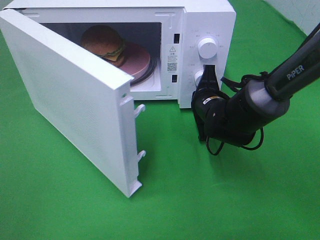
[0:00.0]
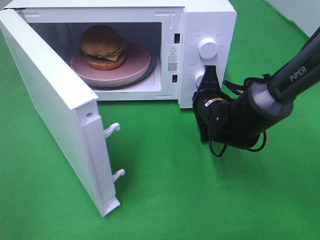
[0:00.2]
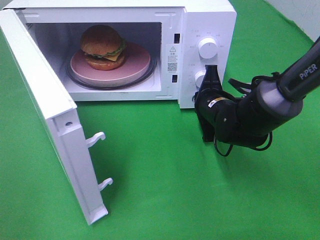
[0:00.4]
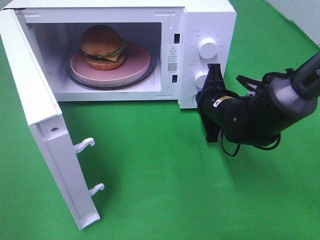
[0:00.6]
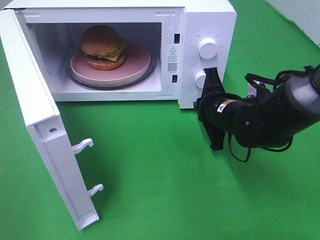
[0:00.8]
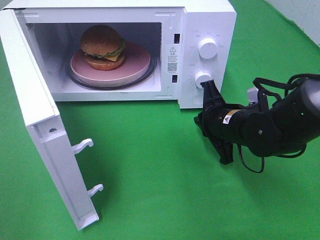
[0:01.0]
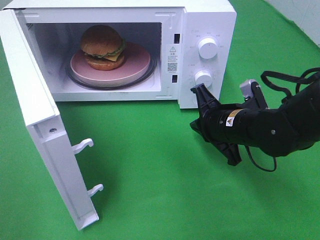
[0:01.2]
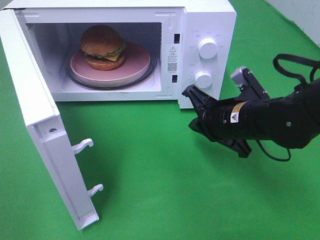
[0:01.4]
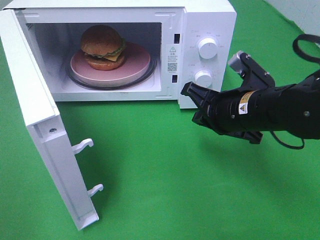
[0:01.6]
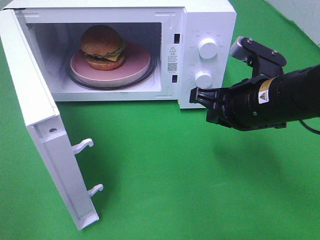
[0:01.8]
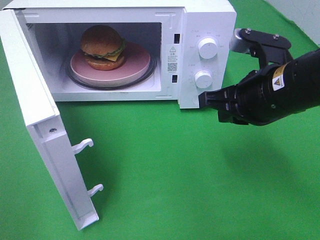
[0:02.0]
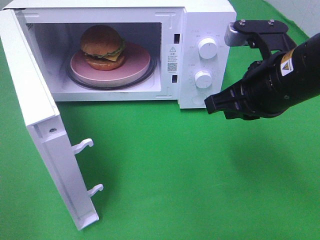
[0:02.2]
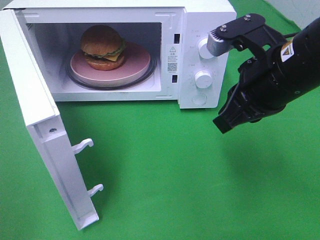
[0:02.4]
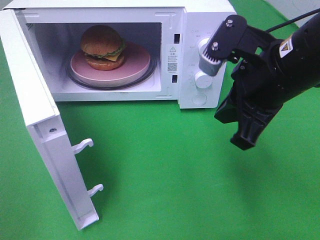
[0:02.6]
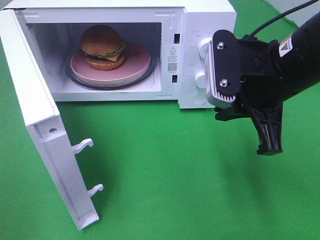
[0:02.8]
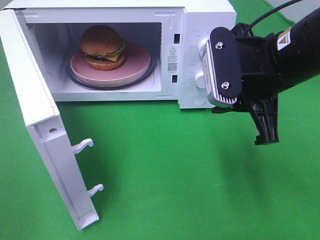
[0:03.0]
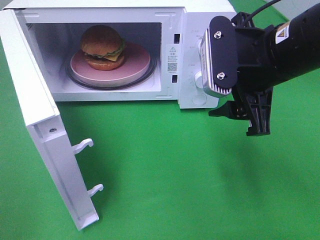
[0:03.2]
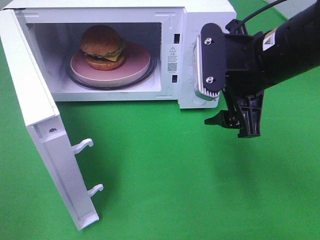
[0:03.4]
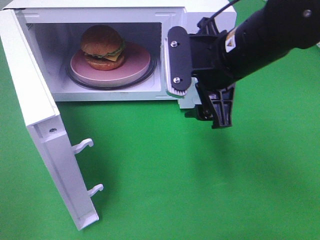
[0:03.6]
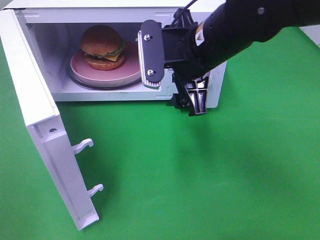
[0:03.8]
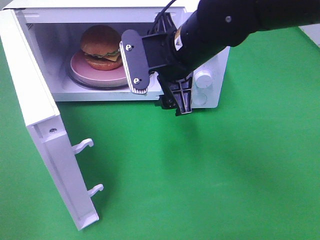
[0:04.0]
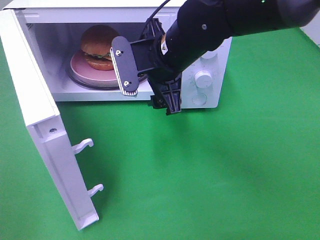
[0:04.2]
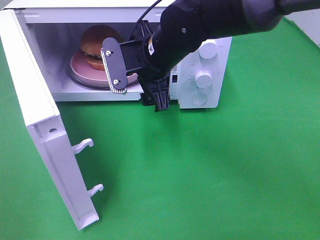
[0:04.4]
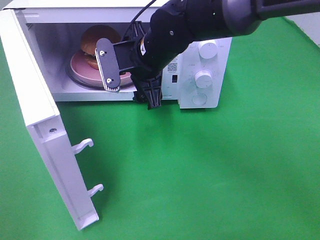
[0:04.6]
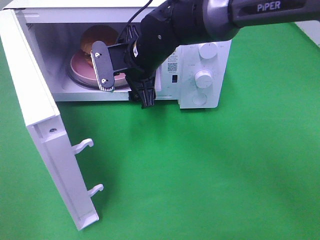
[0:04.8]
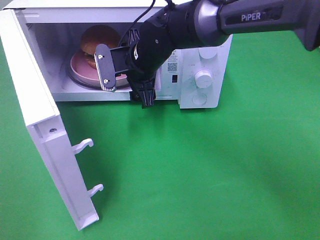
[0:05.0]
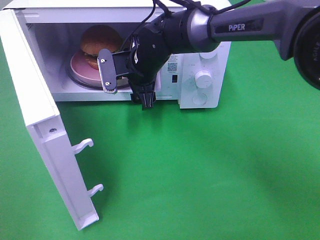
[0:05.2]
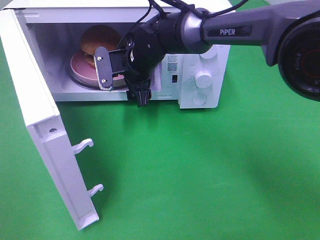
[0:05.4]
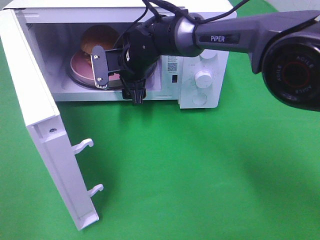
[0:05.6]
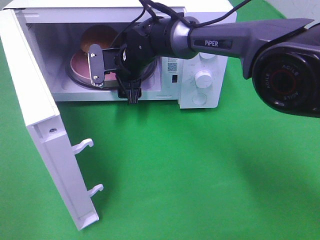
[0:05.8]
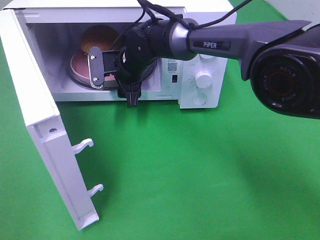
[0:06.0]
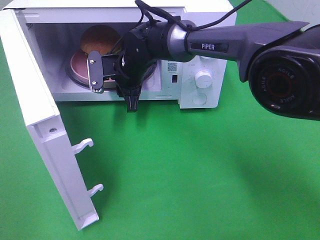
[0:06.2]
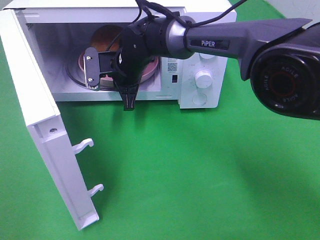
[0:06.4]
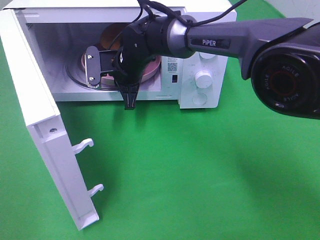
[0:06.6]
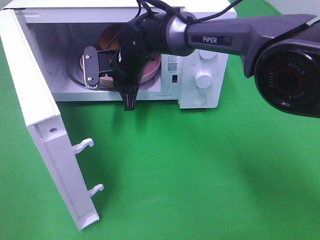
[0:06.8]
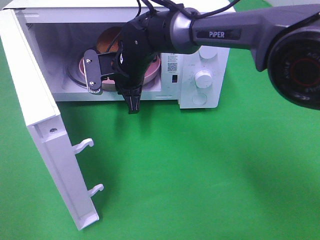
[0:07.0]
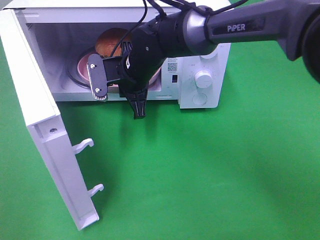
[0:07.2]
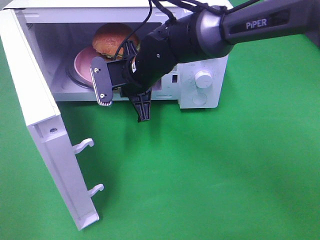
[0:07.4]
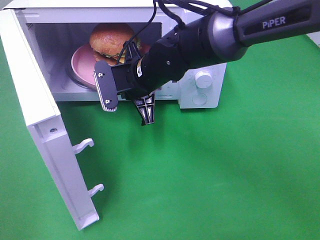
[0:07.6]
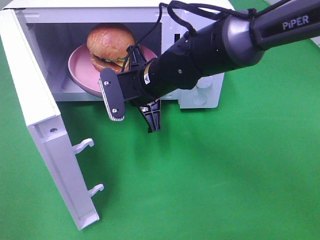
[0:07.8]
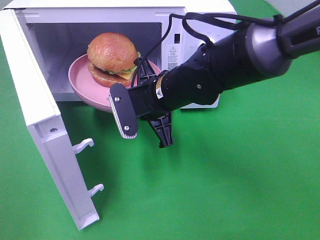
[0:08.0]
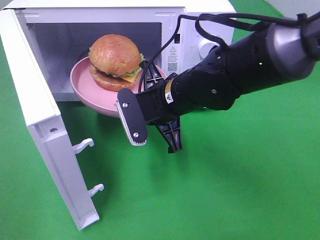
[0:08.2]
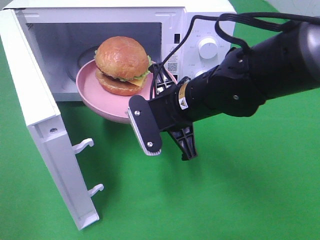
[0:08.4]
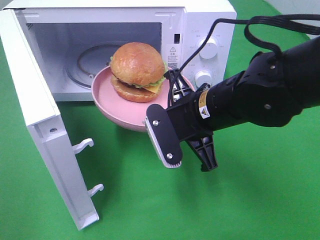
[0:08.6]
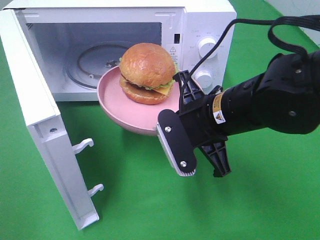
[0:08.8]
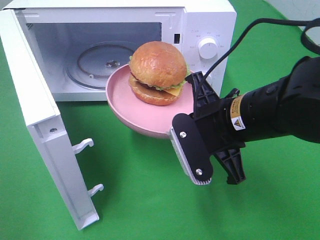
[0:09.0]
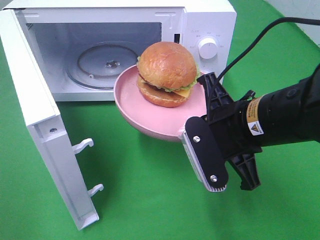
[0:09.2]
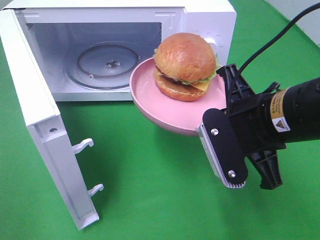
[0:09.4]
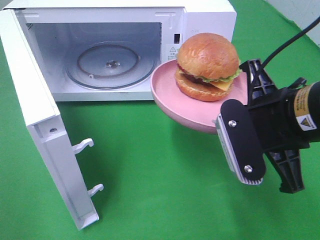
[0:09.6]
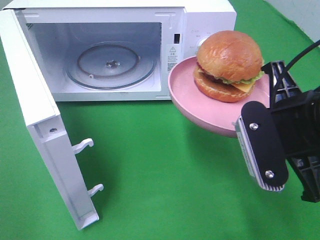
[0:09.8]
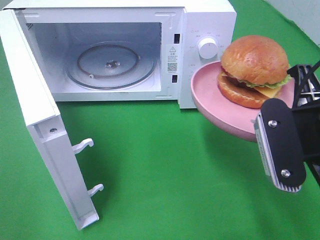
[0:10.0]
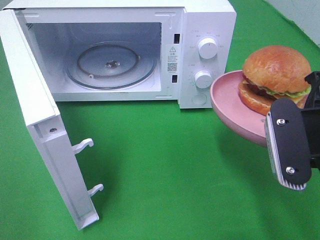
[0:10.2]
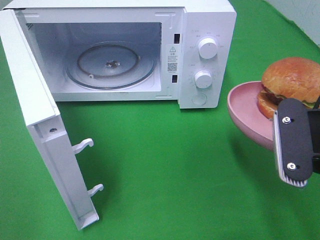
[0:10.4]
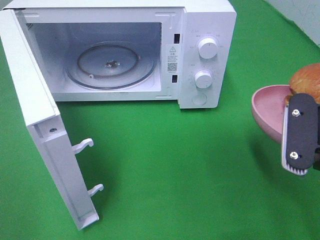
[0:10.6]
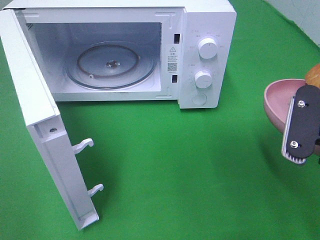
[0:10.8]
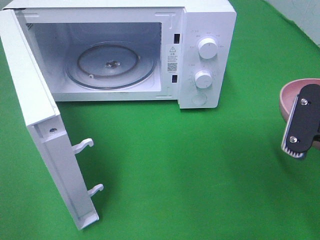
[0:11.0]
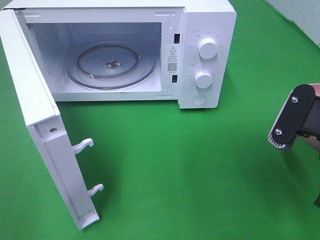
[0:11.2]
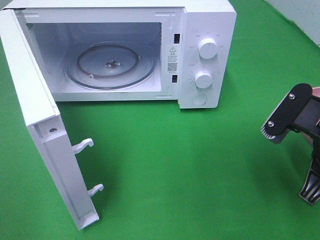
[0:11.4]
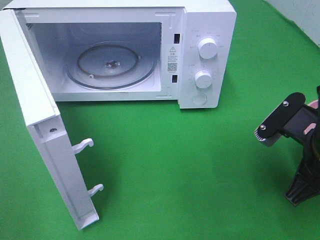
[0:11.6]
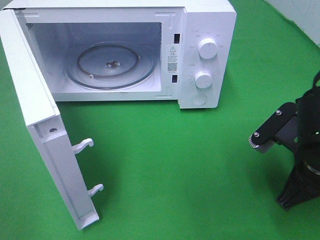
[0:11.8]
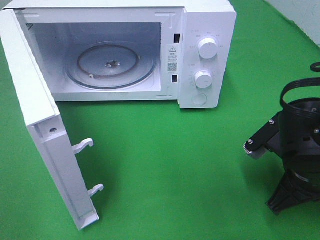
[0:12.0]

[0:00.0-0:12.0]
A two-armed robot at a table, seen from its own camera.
Task of the whole recording: Heat the burger.
Step, 0:01.4 to 0:06.4: Right hand: grab the plate with the hamburger.
0:00.0 to 0:01.6: The right gripper goes about 10 cm backward and upward.
0:01.6 to 0:03.0: The right gripper goes about 10 cm upward, and opens.
0:03.0 to 0:04.4: The right gripper shifts some 20 cm to the left and forward, and opens.
0:04.4 to 0:06.0: The right gripper goes some 10 cm forward and downward.
0:06.0 to 0:07.6: The right gripper shifts about 10 cm backward, and closes up.
0:07.6 to 0:09.0: The right gripper travels backward and to the right by approximately 20 cm.
0:09.0 to 0:10.4: The right gripper moves to the right and backward, roughly 10 cm.
0:10.4 to 0:12.0: The right gripper is displaced downward by about 10 cm.

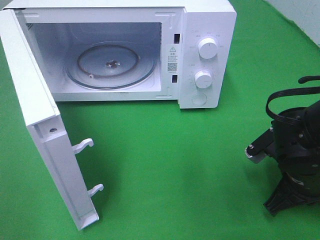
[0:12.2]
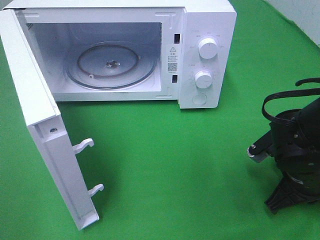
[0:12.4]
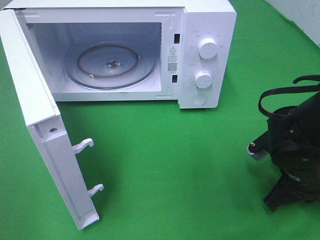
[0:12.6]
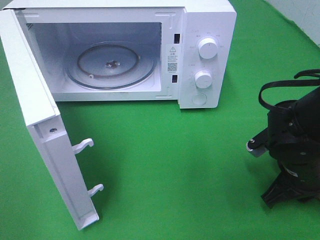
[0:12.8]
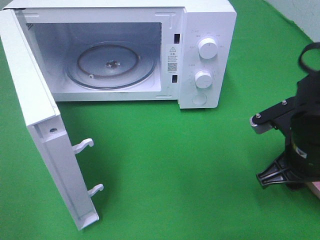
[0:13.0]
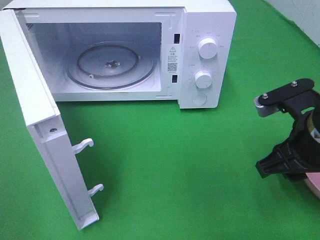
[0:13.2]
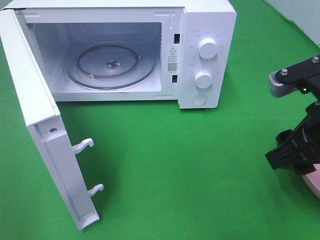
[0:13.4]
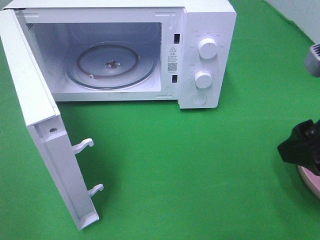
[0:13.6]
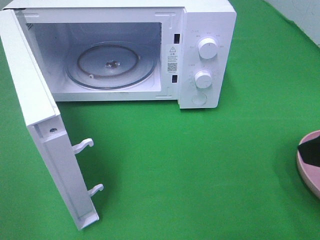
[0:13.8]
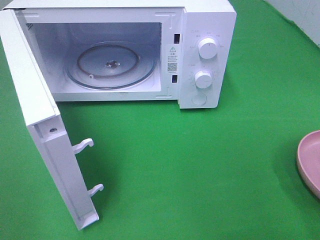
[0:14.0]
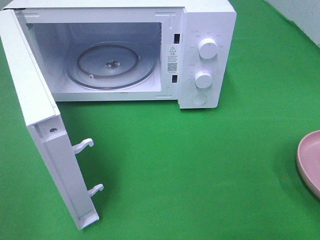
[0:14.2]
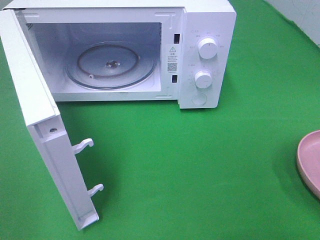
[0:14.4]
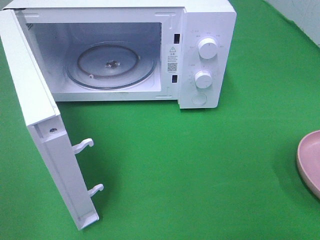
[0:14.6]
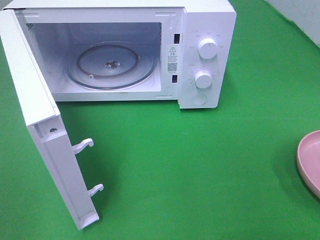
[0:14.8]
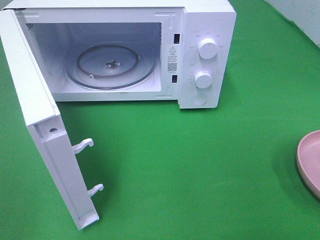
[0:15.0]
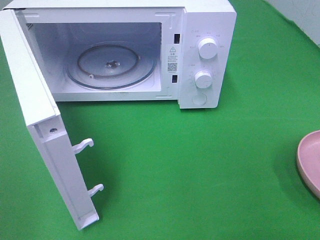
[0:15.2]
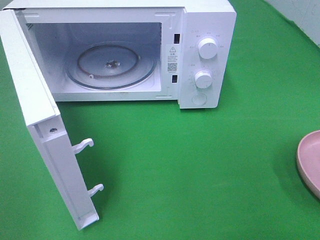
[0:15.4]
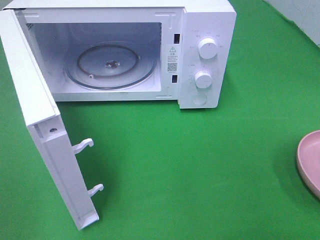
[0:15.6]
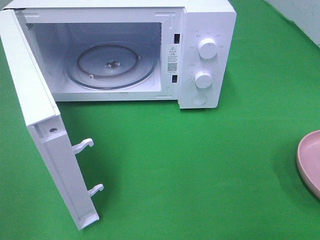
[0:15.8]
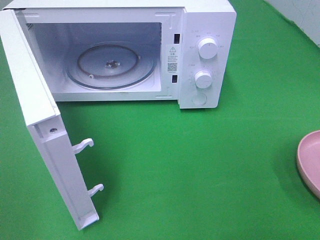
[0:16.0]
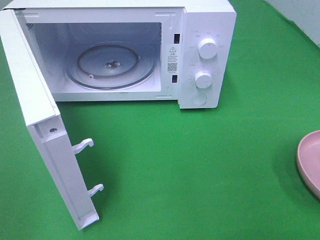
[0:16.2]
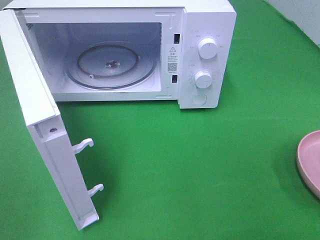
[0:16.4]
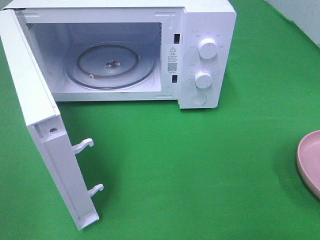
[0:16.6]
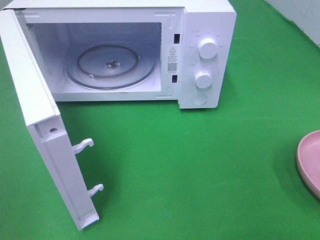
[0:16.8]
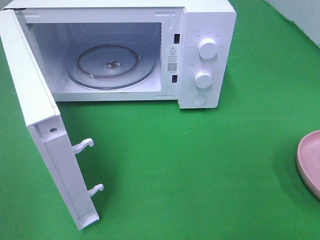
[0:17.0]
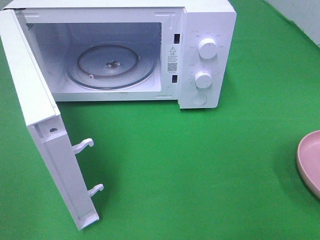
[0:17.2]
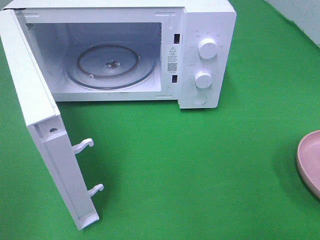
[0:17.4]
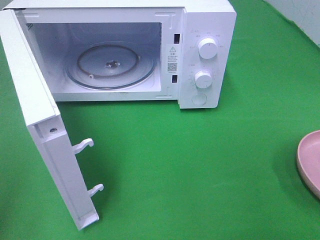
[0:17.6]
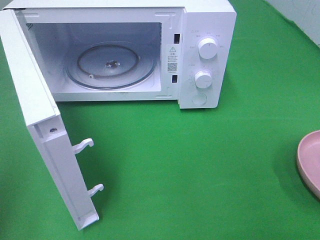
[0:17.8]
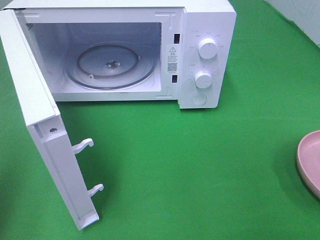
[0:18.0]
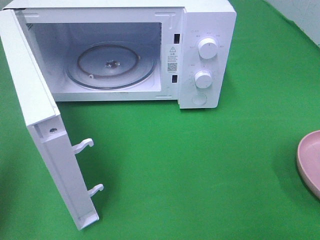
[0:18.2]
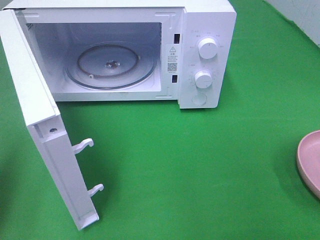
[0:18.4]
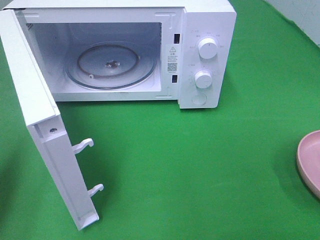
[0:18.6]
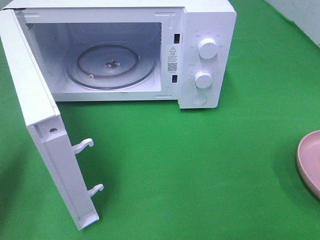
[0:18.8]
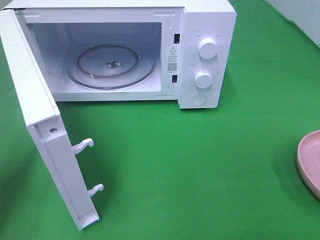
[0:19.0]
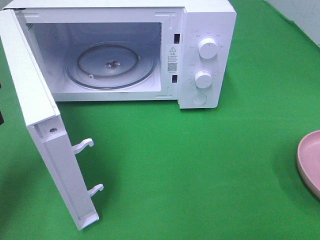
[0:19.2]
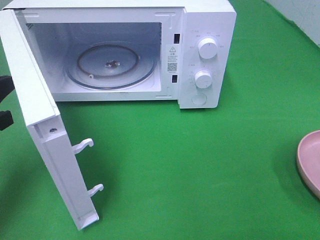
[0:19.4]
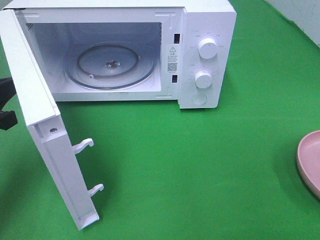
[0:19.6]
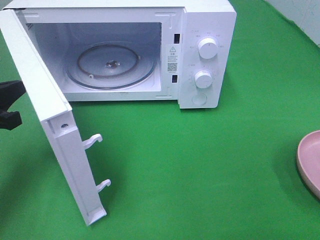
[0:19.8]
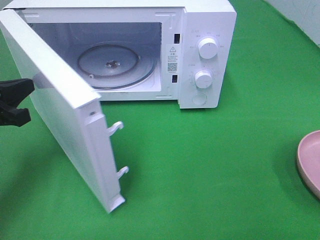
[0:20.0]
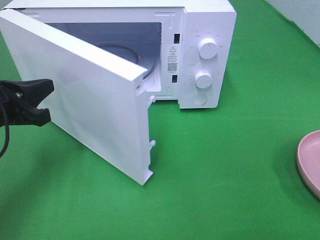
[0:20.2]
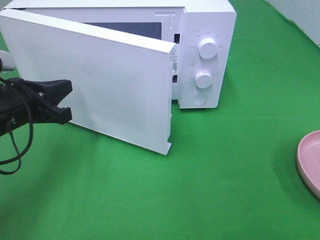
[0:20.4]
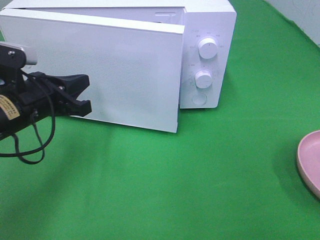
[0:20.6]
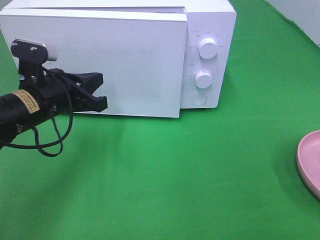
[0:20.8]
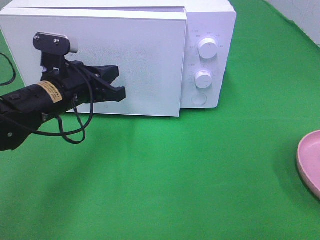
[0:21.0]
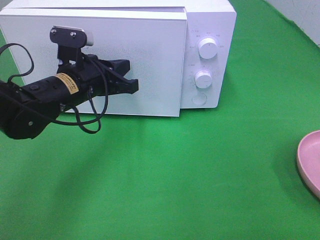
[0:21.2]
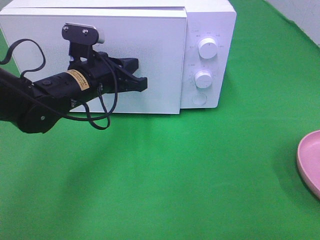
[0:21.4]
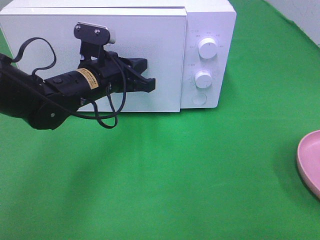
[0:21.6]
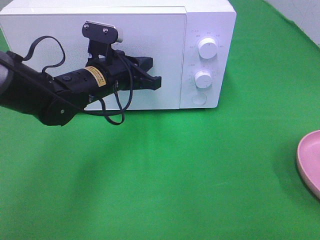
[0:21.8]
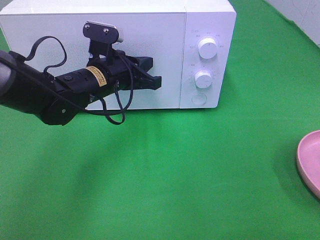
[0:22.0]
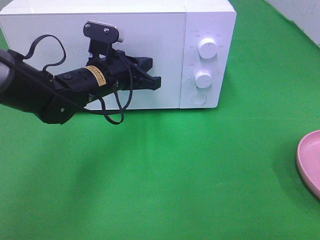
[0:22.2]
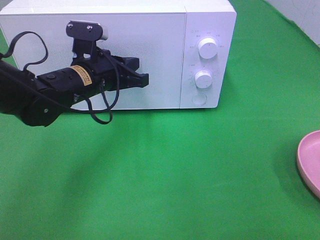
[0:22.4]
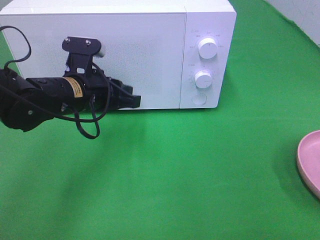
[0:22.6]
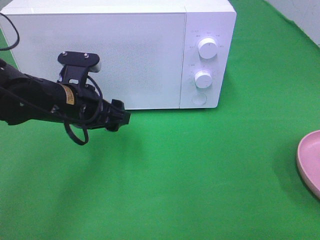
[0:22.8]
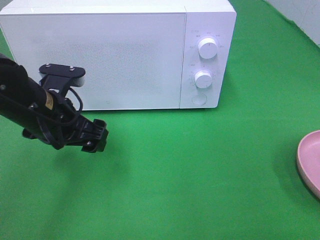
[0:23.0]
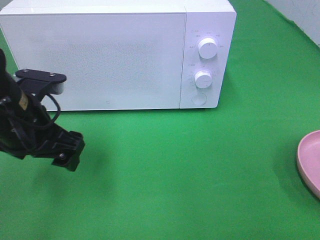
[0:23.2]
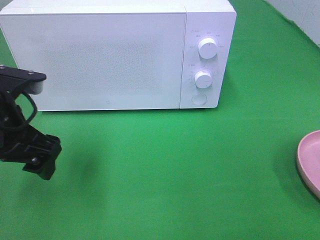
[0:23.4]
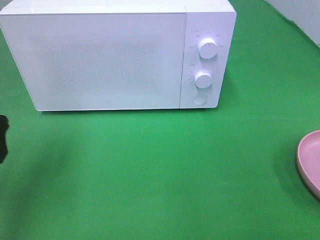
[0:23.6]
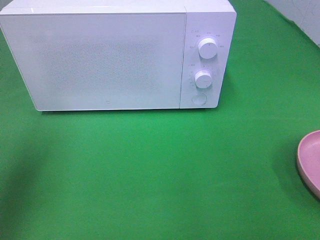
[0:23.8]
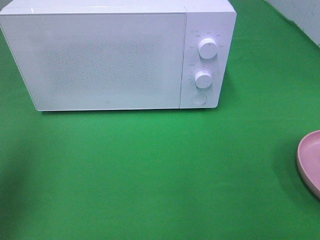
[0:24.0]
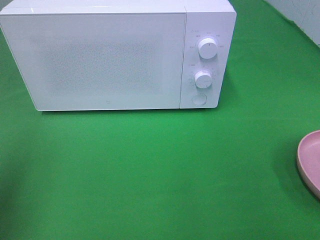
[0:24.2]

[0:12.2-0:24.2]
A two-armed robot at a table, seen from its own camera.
Task of the whole recording: Heat the burger.
Step, 0:13.6 to 0:22.6: Left hand: close the microwave door.
0:12.2 to 0:13.8: The right gripper shifts some 20 cm upward and backward, and opens its fingers.
0:13.8 to 0:15.2: The right gripper is displaced backward and to the right by about 15 cm.
0:15.2 to 0:16.6: Neither gripper changes place.
0:16.6 to 0:18.2: The left gripper travels forward by approximately 15 cm, and closes its fingers.
0:18.2 to 0:19.8: The left gripper is displaced downward and forward by approximately 15 cm.
0:19.8 to 0:21.2: The left gripper moves to the right and forward, approximately 20 cm.
0:22.6 to 0:24.2: The left gripper travels to the left, backward and upward by approximately 30 cm, and opens its fingers.
